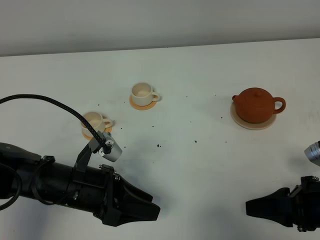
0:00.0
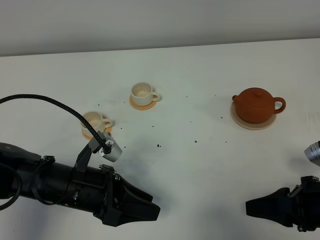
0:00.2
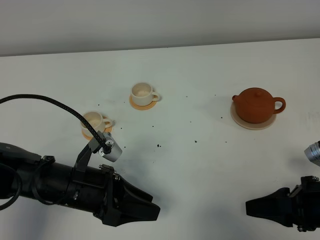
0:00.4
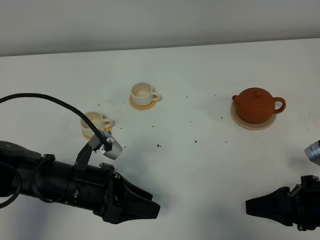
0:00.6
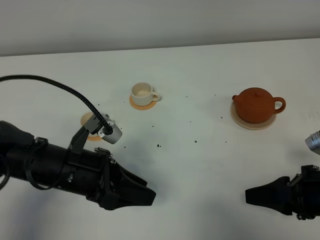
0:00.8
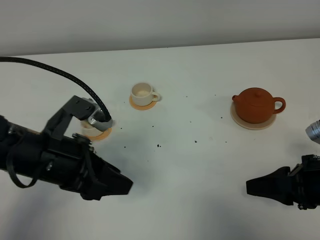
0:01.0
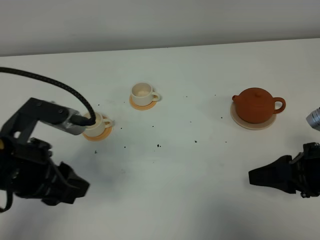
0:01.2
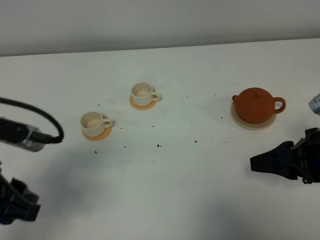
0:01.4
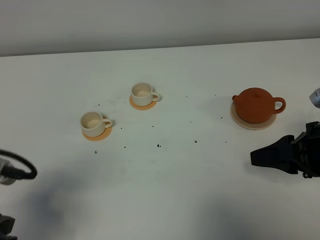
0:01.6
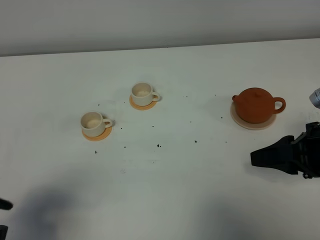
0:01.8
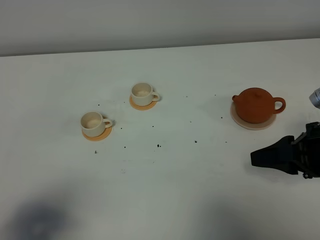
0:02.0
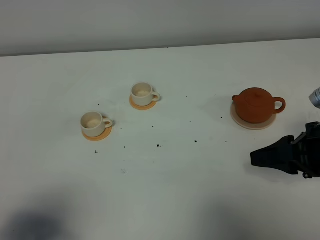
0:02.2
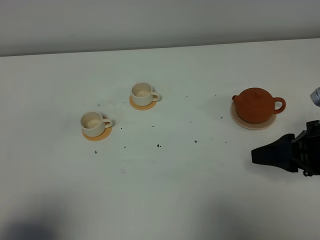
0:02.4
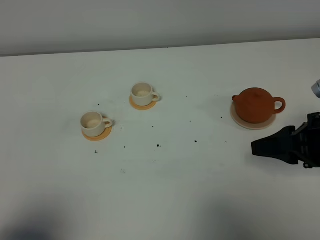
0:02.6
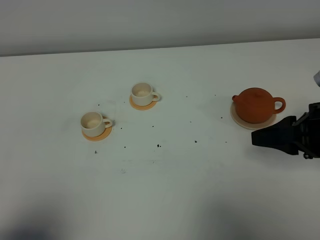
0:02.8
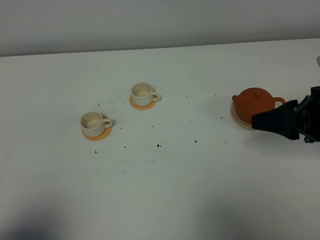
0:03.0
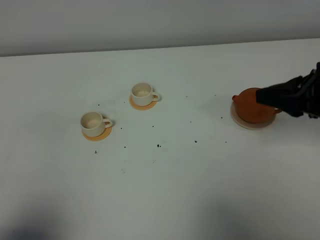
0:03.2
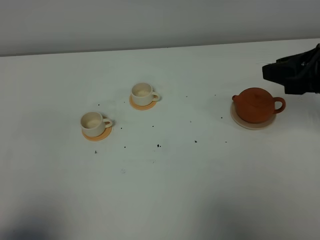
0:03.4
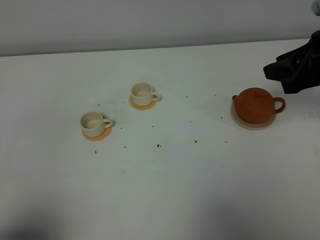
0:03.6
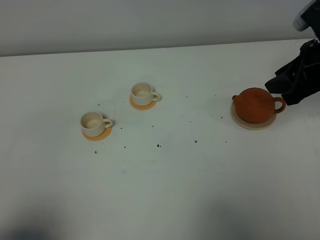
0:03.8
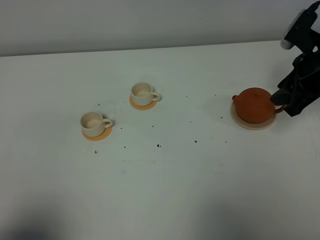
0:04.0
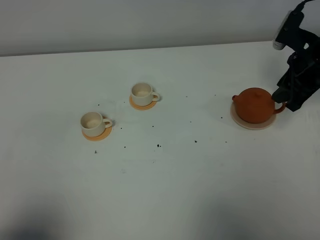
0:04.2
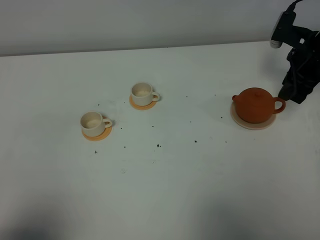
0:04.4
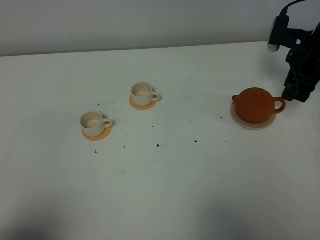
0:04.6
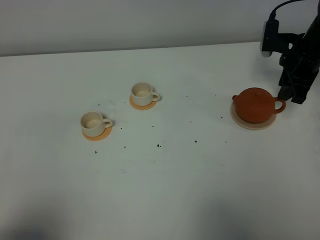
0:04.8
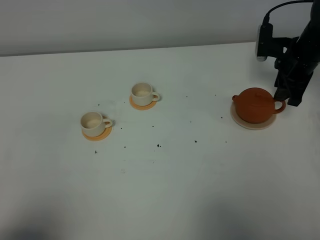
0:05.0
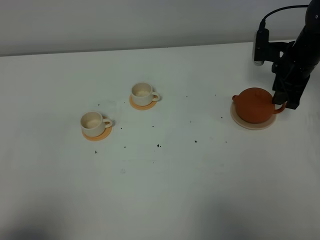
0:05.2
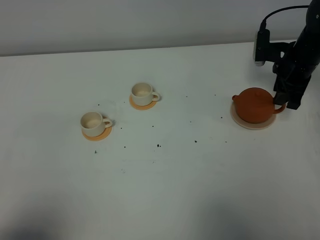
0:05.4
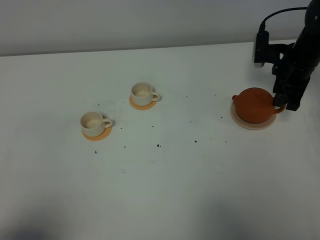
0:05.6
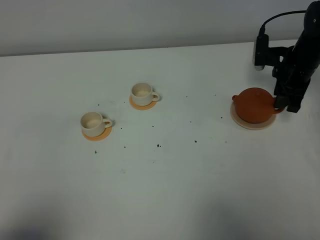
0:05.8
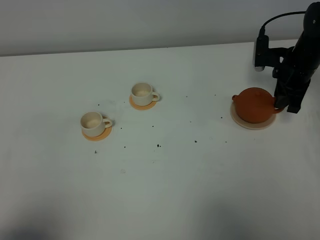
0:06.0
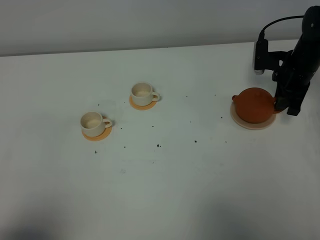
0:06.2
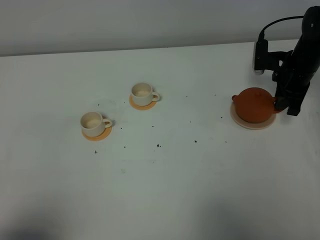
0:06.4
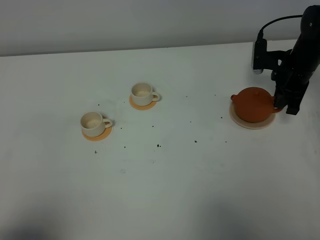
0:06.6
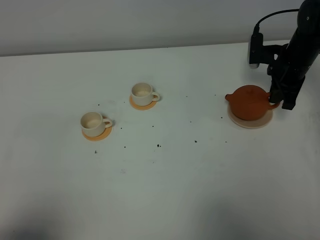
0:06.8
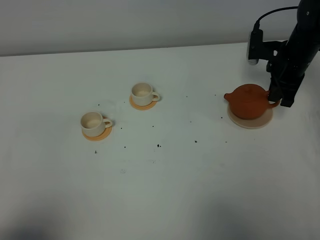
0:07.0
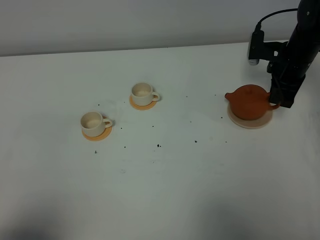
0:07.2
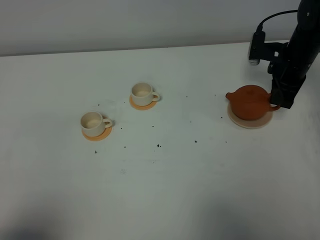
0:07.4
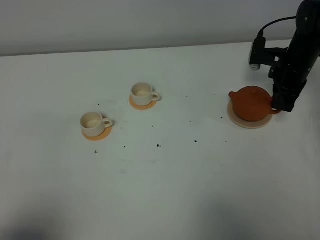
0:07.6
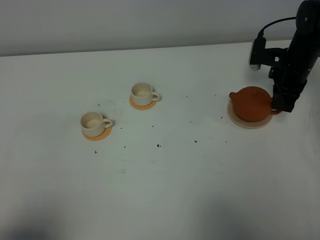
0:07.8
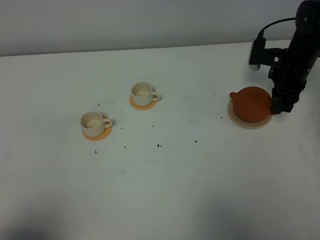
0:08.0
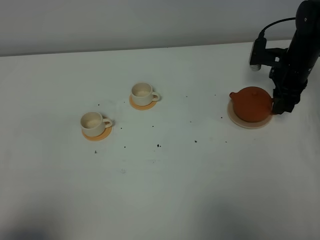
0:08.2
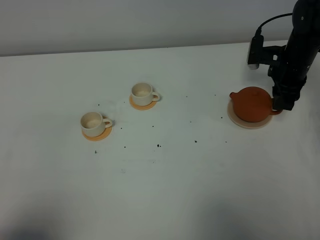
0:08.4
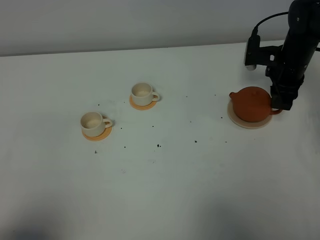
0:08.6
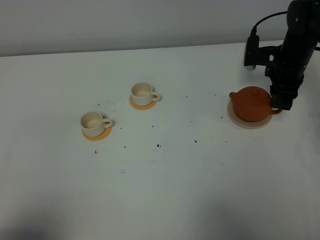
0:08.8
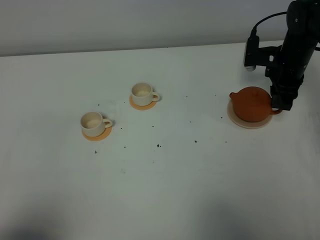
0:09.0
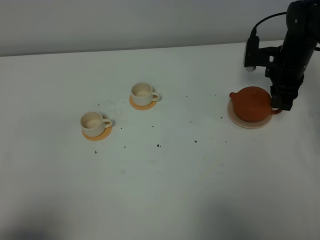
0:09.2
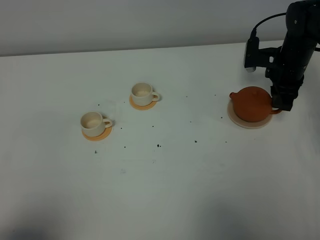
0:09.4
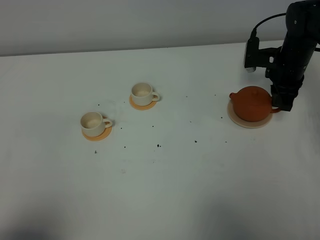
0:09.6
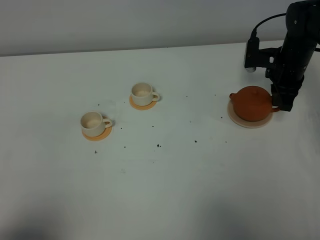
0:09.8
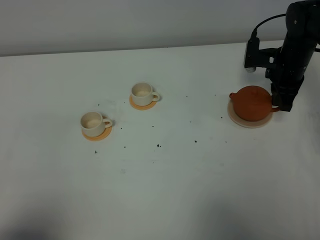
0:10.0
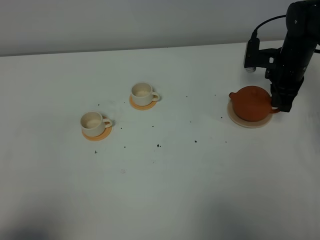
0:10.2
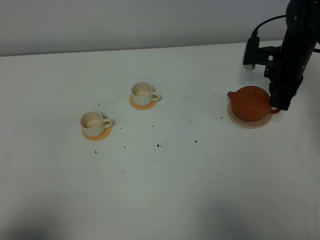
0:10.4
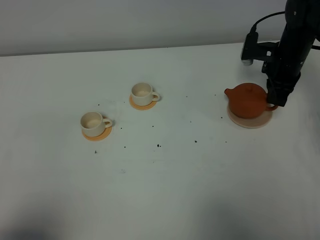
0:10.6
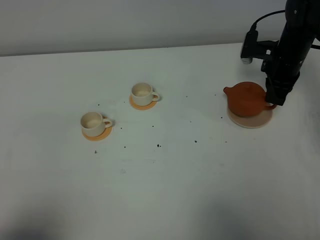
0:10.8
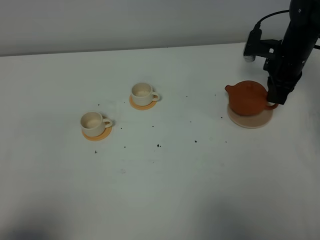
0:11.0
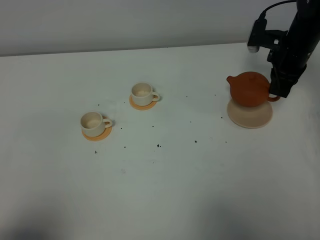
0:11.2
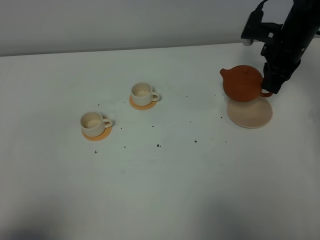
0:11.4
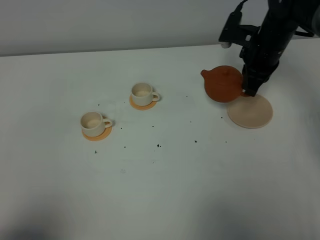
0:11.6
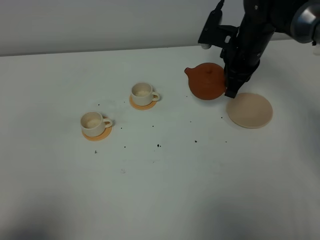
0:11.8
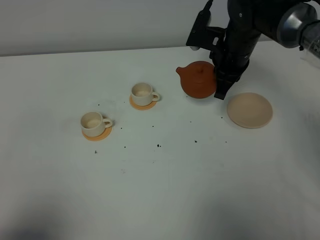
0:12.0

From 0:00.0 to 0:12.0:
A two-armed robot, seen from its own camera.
Task of the whole recording: grasp the brown teapot and pour the tea into the two white teacups one by one, put the brown teapot back in its original place.
Step, from 0:00.0 to 0:10.6: Pick up the teapot with the right gripper.
From 0:00.0 to 0:01.6: The right gripper shifts about 10 cm upward and forward. The left gripper shifts some 20 cm upward, to the left and backward.
From 0:01.6 to 0:03.0: The left gripper heads backward, covering some 10 cm.
From 0:03.0 to 0:04.4: The right gripper is displaced forward by approximately 20 cm.
From 0:04.4 to 0:06.0: The right gripper goes about 5 cm downward.
From 0:06.0 to 0:07.6: The right gripper closes up.
From 0:07.6 to 0:09.0: The right gripper opens.
From 0:09.0 to 0:10.4: The right gripper closes up.
From 0:10.4 to 0:12.0: The right gripper heads to the left and upward, covering some 15 cm.

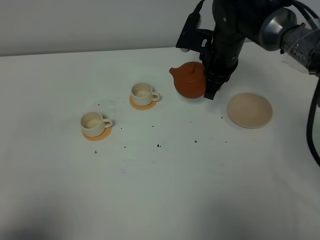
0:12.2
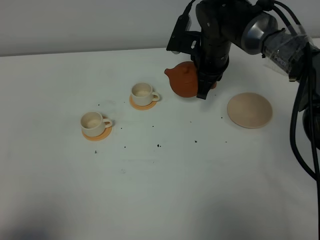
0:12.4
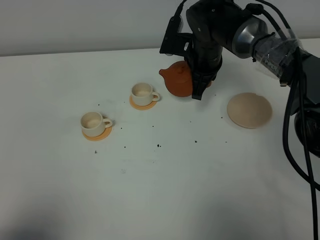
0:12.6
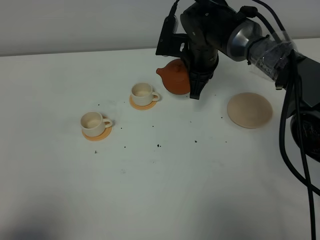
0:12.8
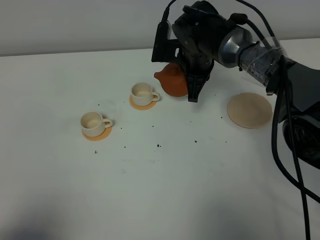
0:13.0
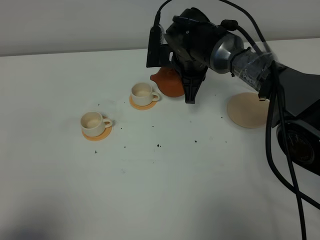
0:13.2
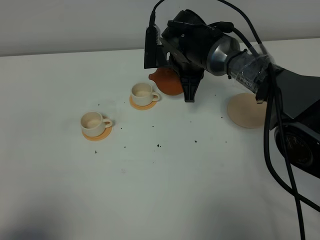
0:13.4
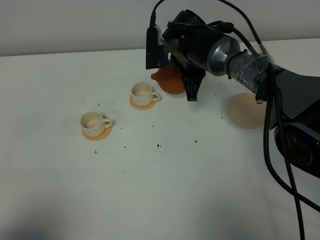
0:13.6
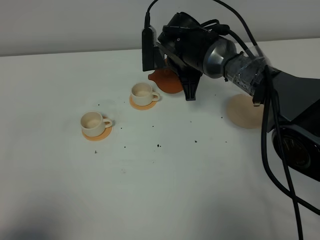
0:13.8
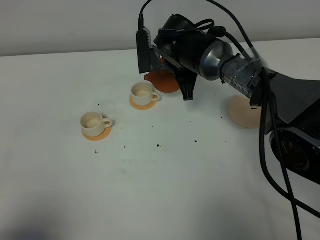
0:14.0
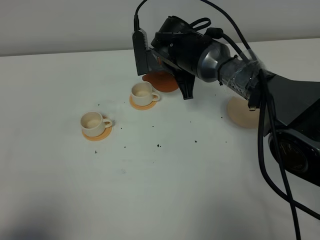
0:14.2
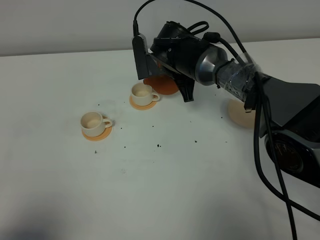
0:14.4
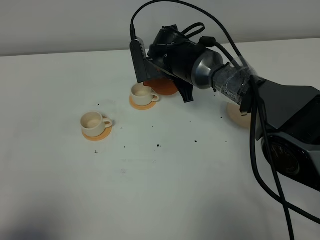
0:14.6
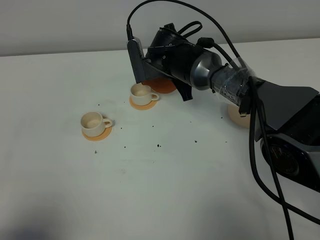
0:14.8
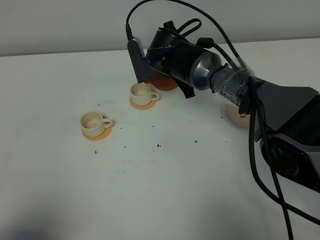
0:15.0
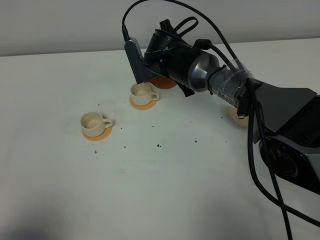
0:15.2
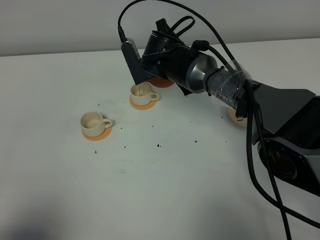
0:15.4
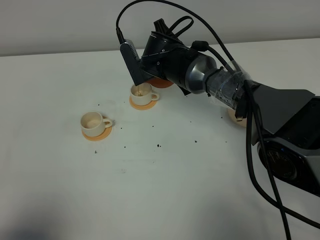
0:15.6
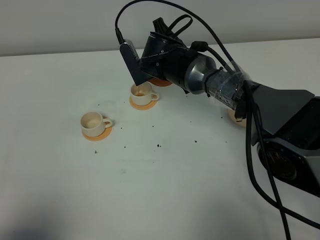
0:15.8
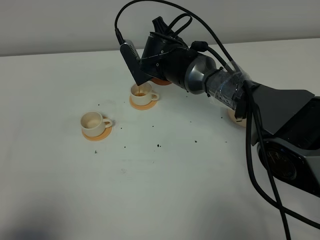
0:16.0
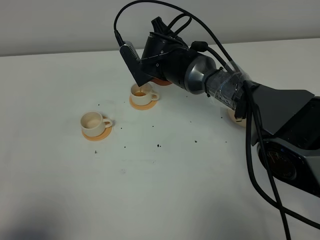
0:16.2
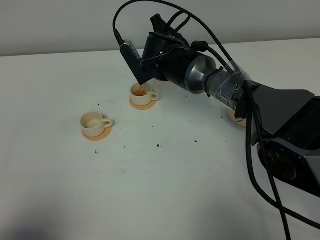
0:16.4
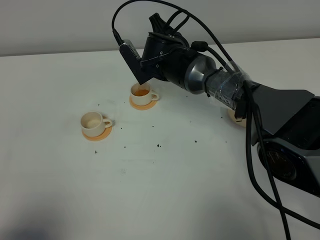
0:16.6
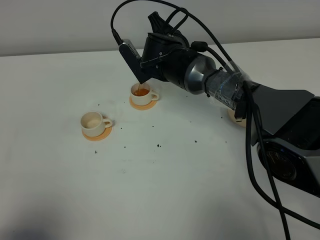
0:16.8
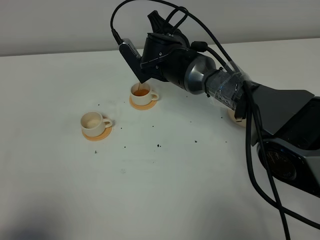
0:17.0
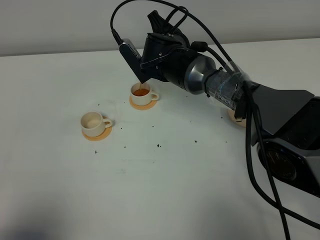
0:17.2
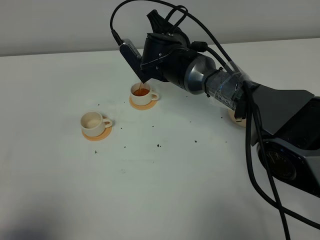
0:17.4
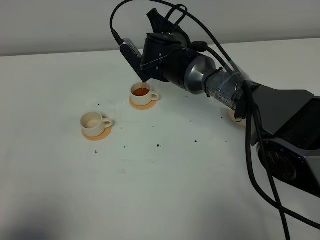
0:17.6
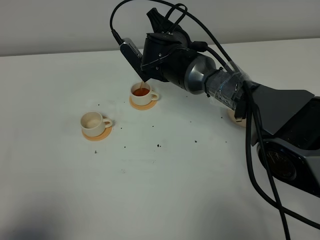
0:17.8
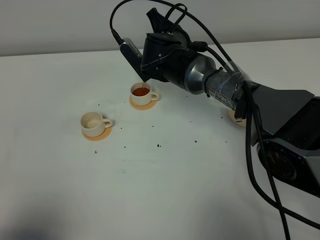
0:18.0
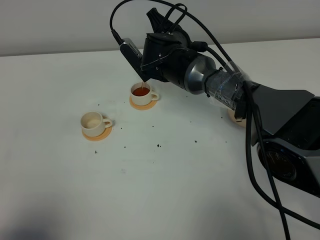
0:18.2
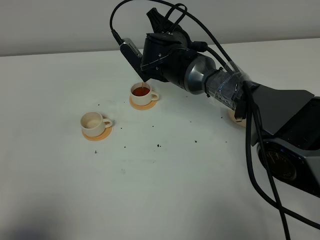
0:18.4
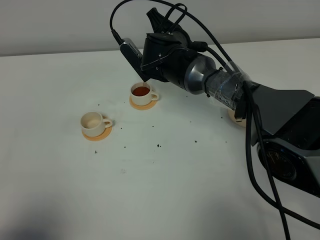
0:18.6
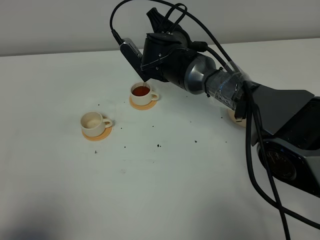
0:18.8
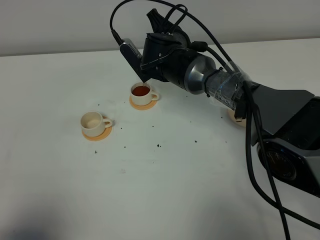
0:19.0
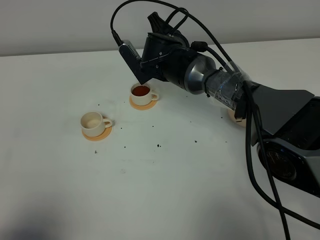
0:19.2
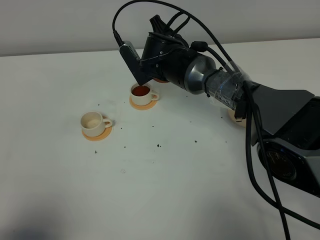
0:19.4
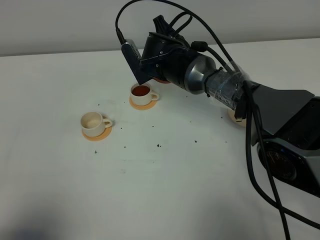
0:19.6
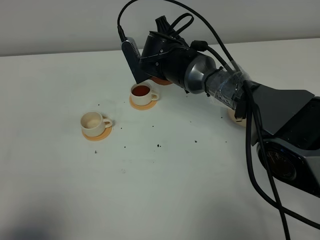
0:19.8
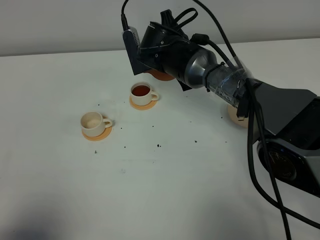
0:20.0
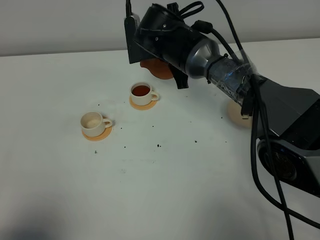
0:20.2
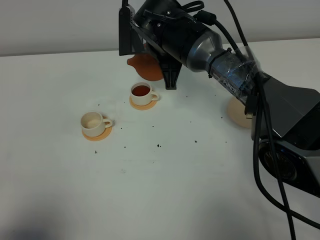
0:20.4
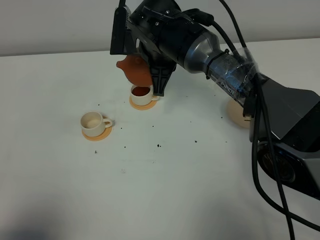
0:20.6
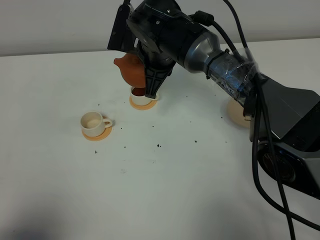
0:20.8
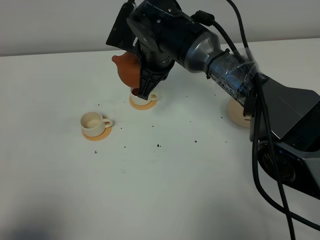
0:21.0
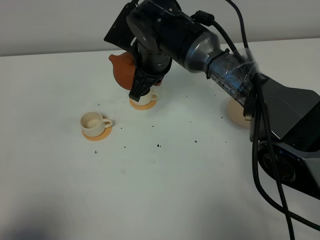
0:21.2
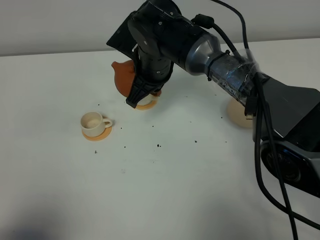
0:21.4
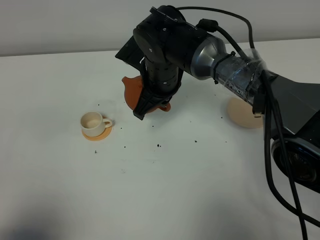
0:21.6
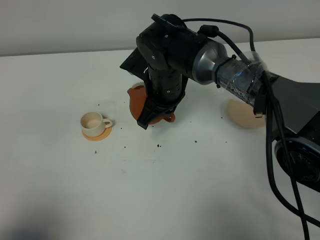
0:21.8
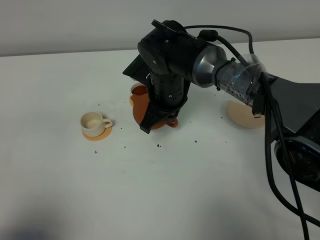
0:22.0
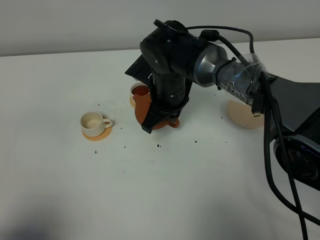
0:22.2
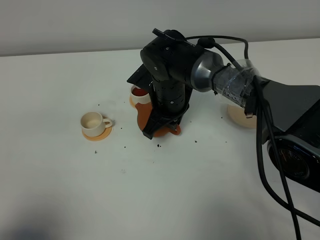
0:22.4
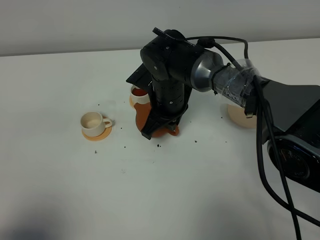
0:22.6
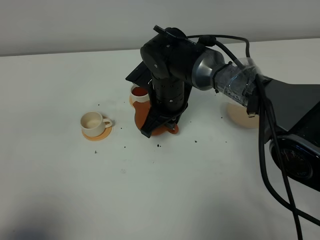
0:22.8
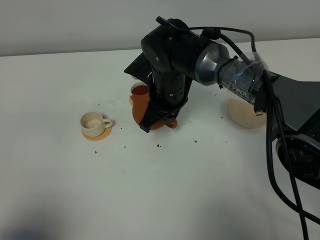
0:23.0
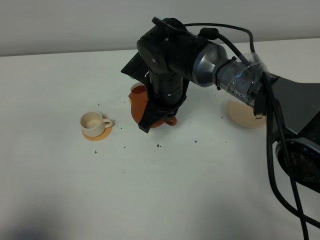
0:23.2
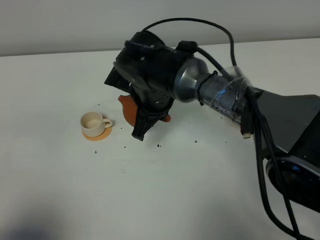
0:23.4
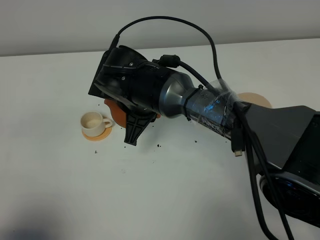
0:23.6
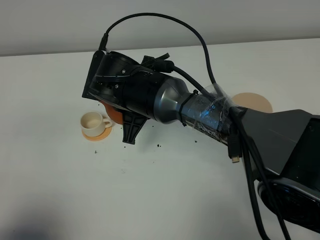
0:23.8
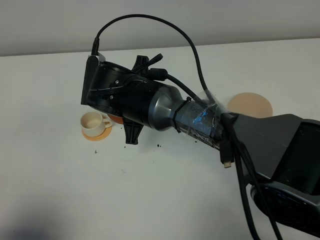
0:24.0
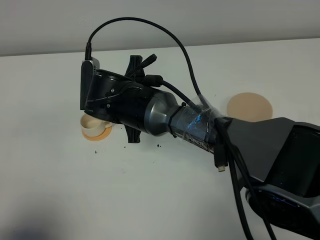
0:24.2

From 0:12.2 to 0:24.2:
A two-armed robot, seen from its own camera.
Task of the whole recording: grasp the brown teapot and pour the tea into the two white teacups one by one, put the brown teapot back in its original place.
Step, from 0:12.2 to 0:19.4: Pour tea into the teacup with the right gripper.
From 0:12.2 to 0:13.8: The right gripper heads to the left, covering some 5 cm.
From 0:13.8 to 0:15.2: The grippers move only a little.
From 0:15.2 to 0:16.6: The grippers move only a little.
From 0:16.6 to 0:19.8: The grippers move only a little.
From 0:19.8 to 0:21.2: The right gripper shifts by approximately 5 cm.
From 0:21.2 to 0:22.6: The right gripper is displaced downward by some 5 cm.
From 0:22.6 to 0:24.2: The right gripper is displaced to the left by some 5 cm.
